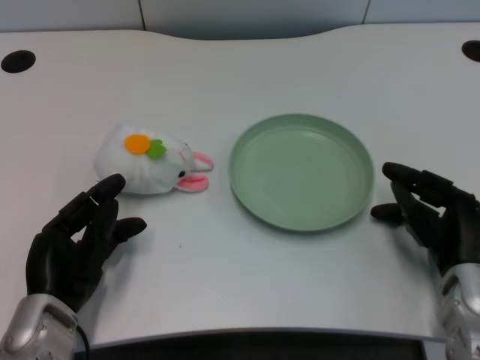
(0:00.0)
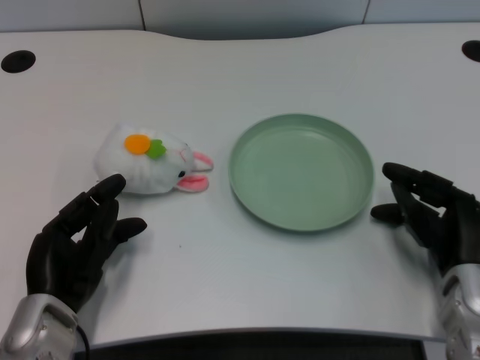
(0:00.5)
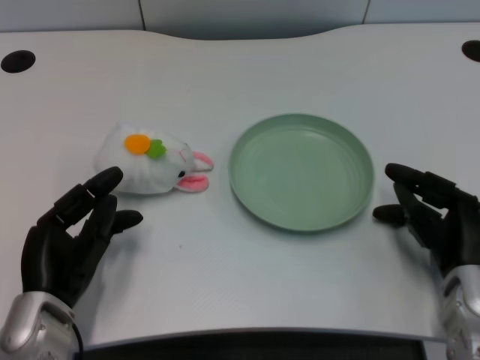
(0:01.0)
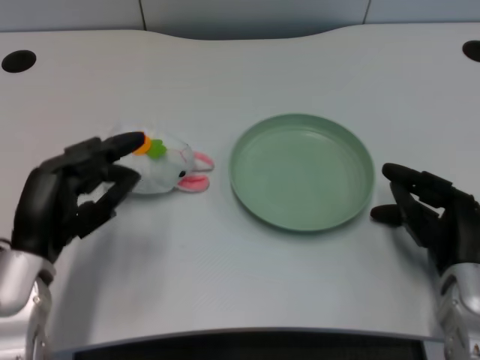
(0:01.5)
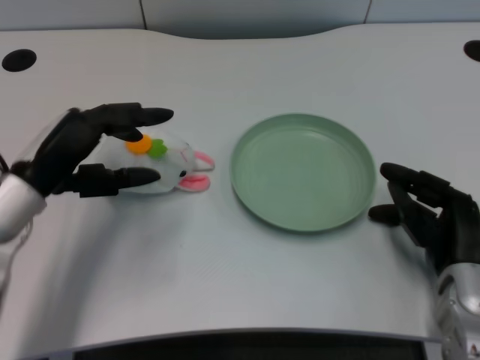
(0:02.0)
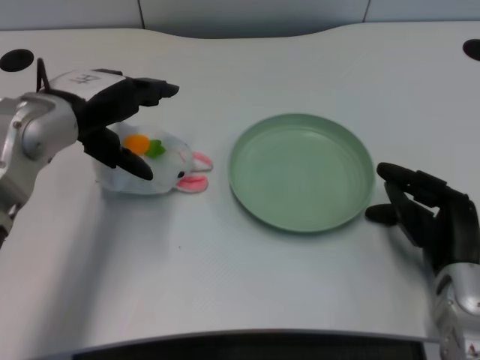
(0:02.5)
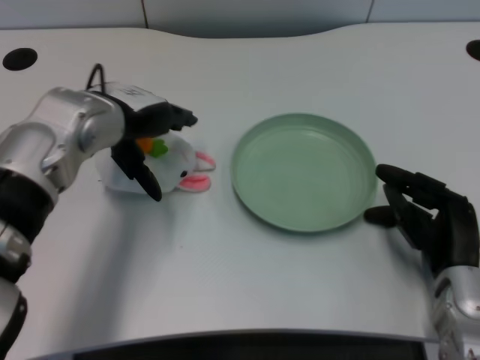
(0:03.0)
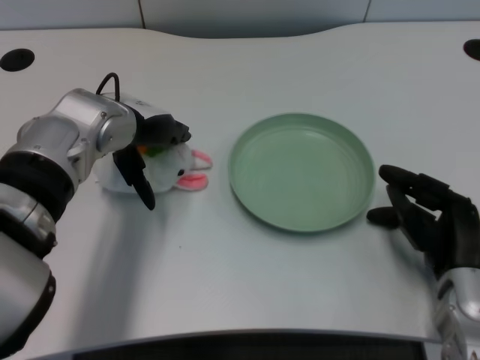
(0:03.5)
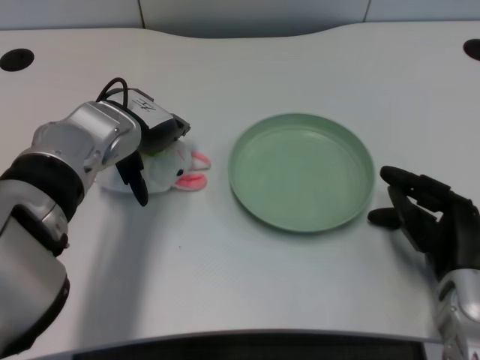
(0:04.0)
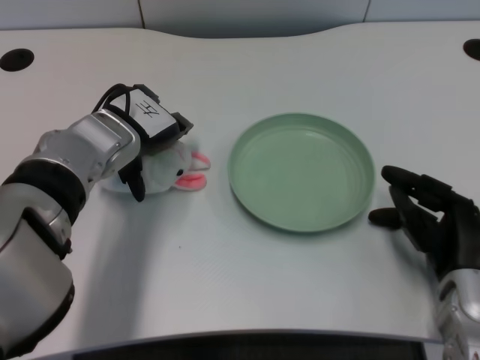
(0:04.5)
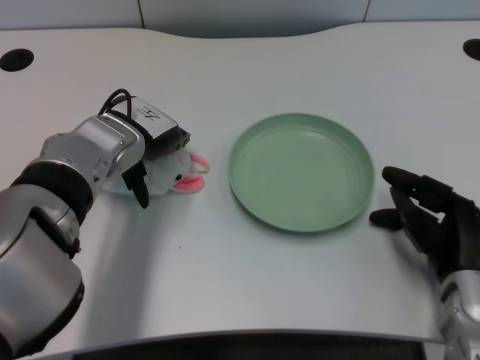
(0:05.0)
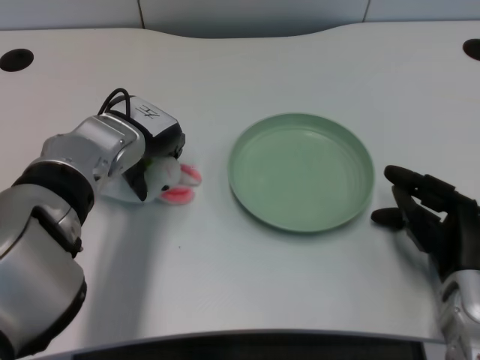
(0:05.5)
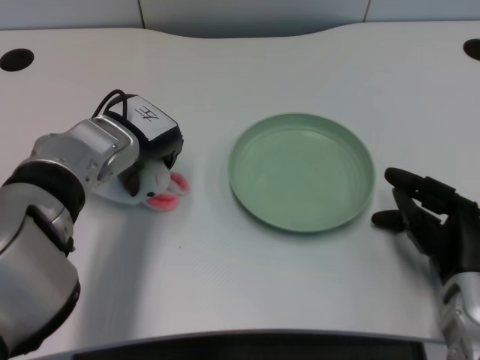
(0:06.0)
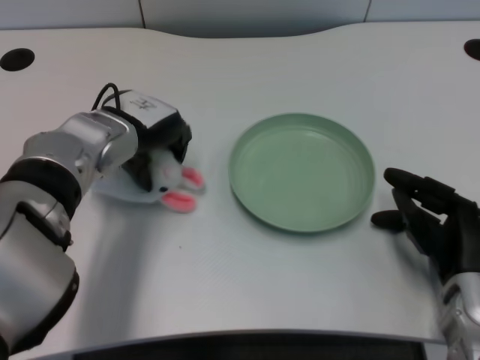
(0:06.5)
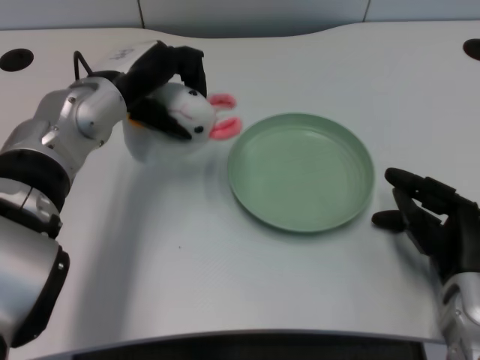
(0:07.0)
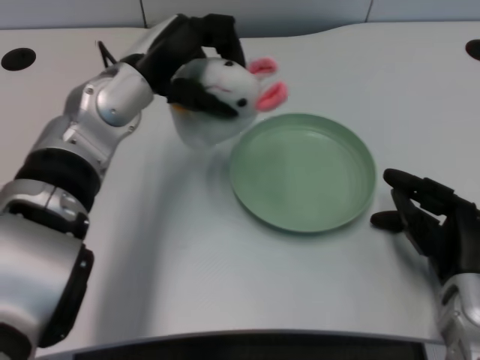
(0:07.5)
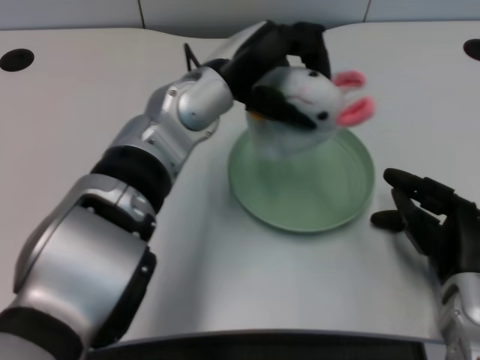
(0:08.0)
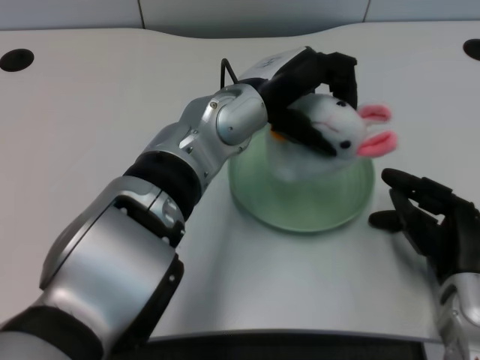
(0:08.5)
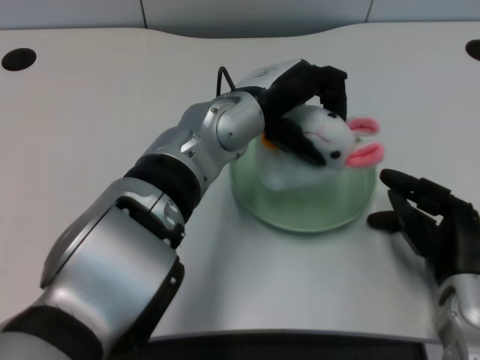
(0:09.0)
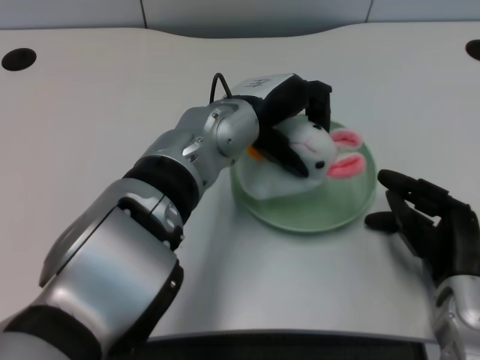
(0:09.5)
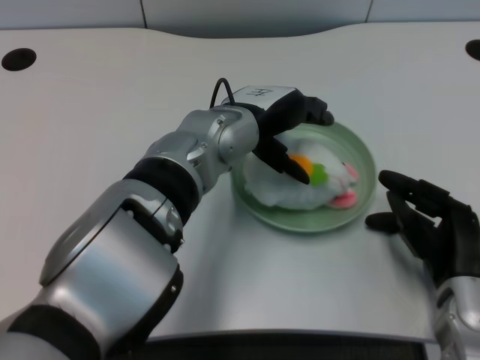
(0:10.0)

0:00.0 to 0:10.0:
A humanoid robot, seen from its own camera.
Task of the whole recording: pick up the rabbit doll from the table and place it on the plate.
Step, 0:01.0 to 0:06.0: Grasp the rabbit doll with the left gripper.
0:02.0 to 0:04.0: The left hand moves forward and to the right, approximately 10 cm.
0:04.0 to 0:06.0: The hands make only small movements.
0:06.0 to 0:08.0: The left hand goes some 10 cm to the right and upward.

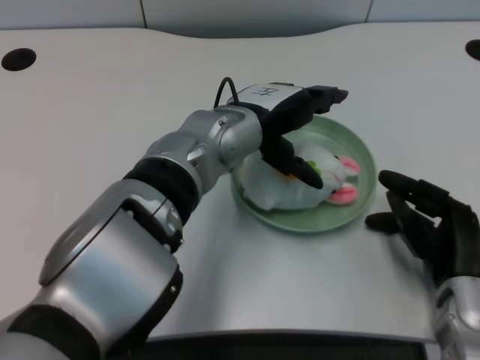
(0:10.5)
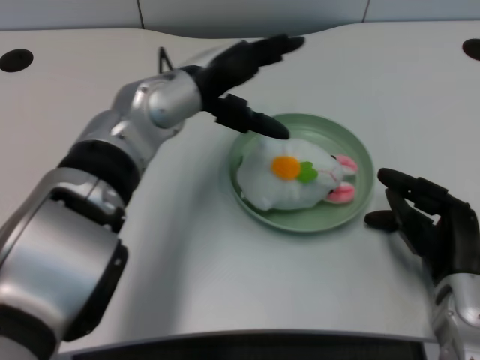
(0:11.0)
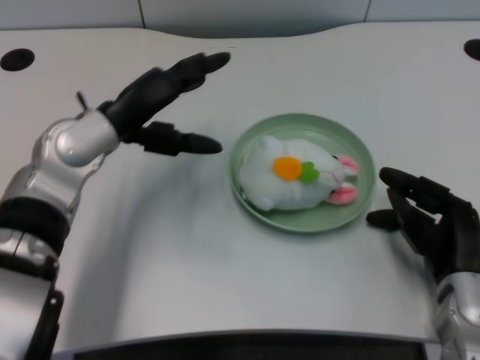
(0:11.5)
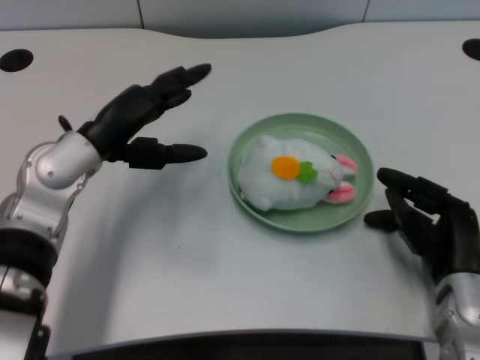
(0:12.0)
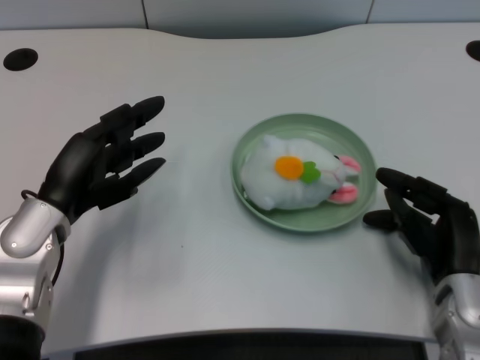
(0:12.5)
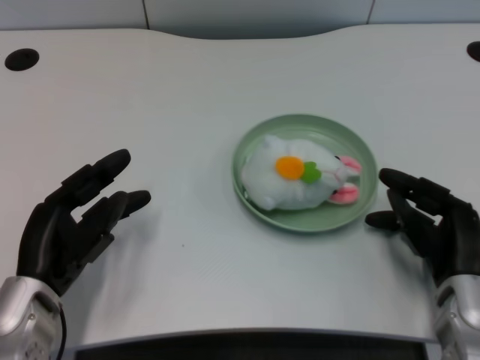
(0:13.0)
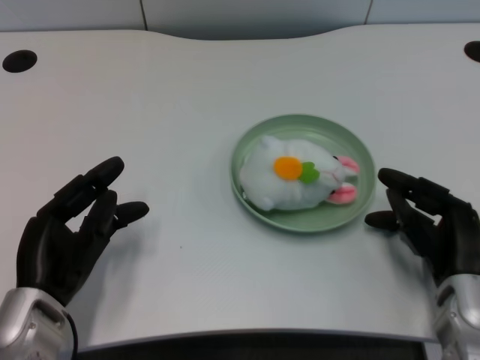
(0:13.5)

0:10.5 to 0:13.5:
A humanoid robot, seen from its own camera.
Task of the whole recording: pick up the rabbit doll from the table and place it on the plate.
0:10.5 to 0:12.0: The left hand moves to the left, approximately 15 cm.
0:12.0 to 0:13.5: The left hand is displaced backward and downward by roughly 15 cm.

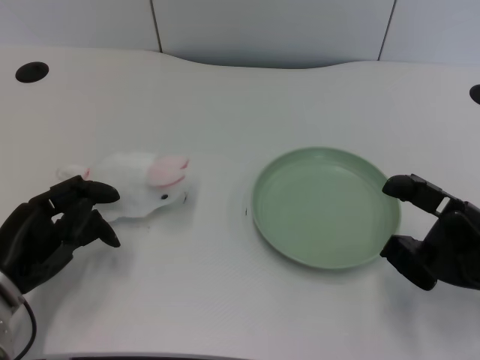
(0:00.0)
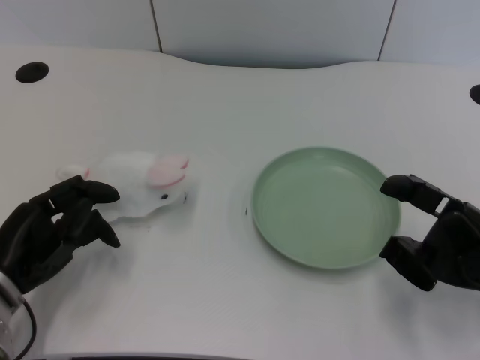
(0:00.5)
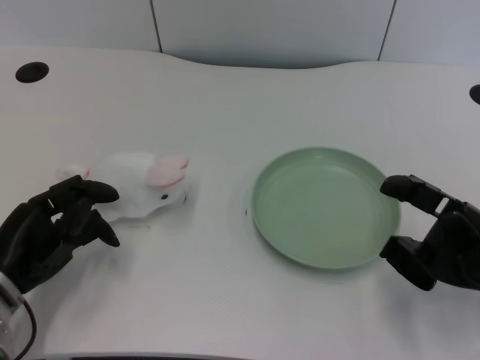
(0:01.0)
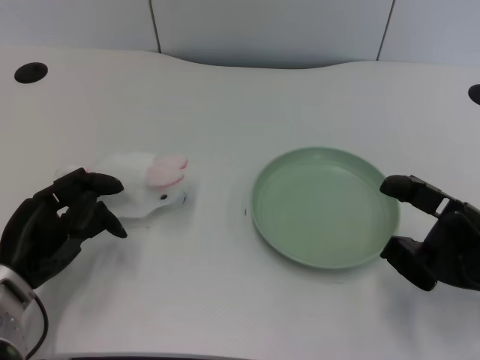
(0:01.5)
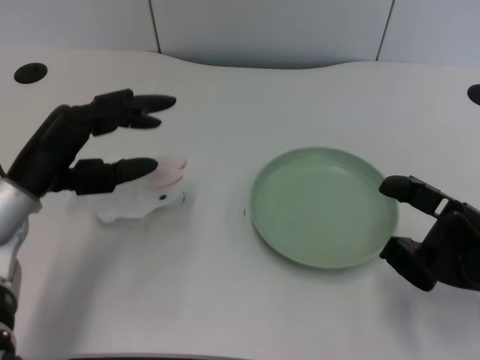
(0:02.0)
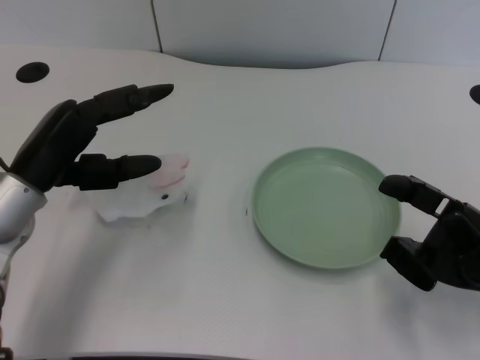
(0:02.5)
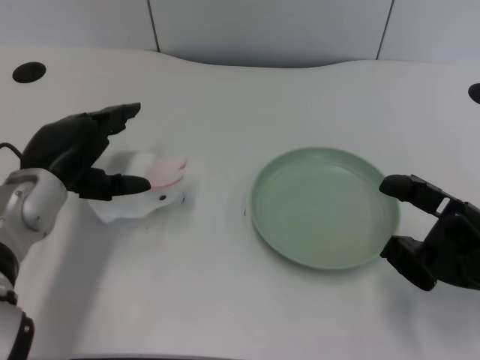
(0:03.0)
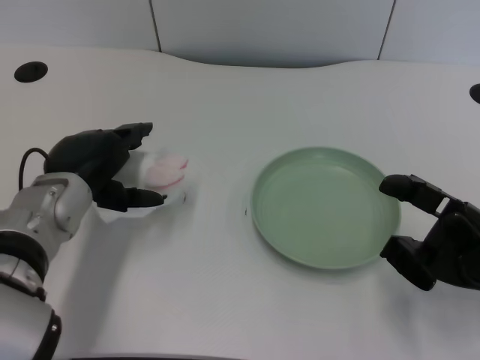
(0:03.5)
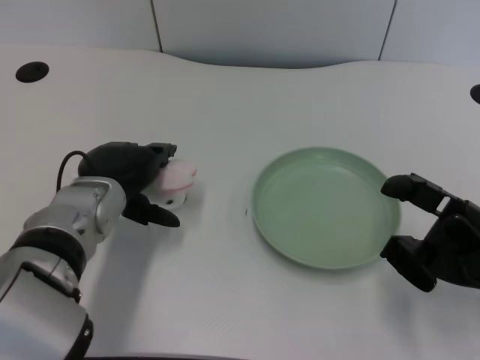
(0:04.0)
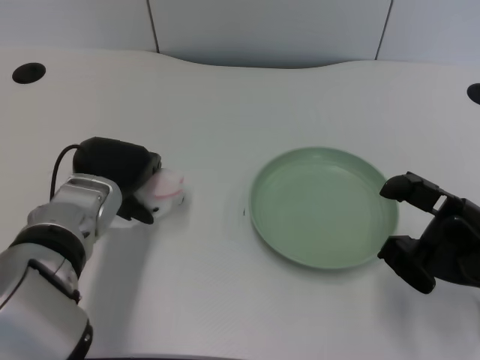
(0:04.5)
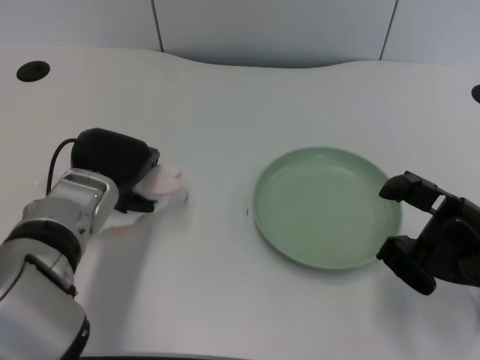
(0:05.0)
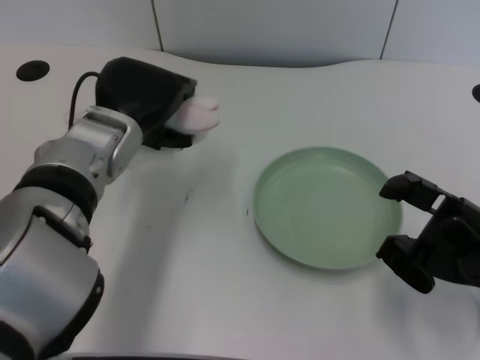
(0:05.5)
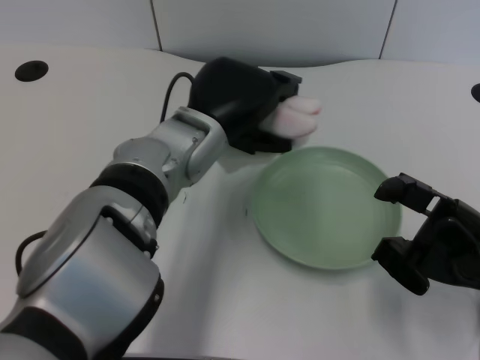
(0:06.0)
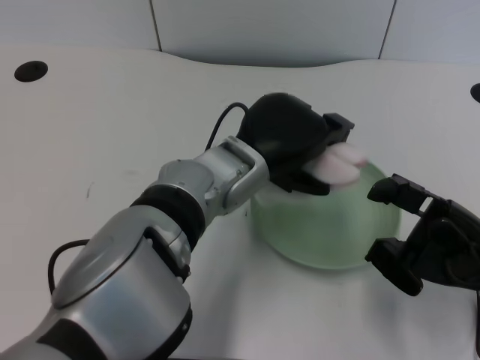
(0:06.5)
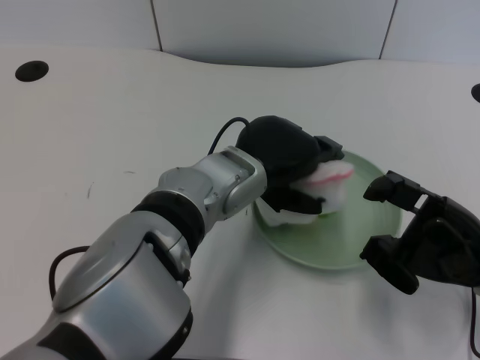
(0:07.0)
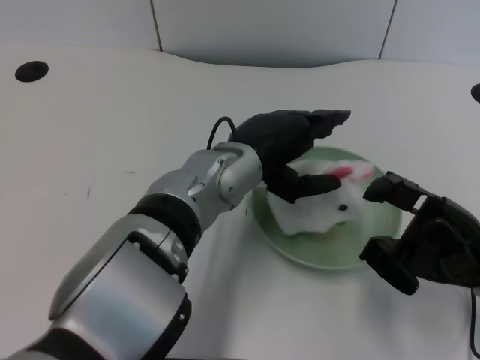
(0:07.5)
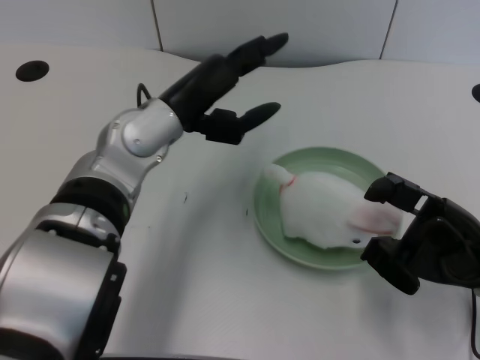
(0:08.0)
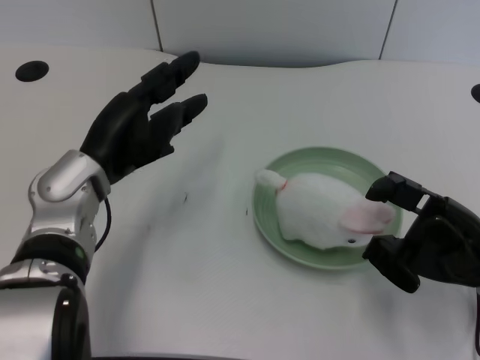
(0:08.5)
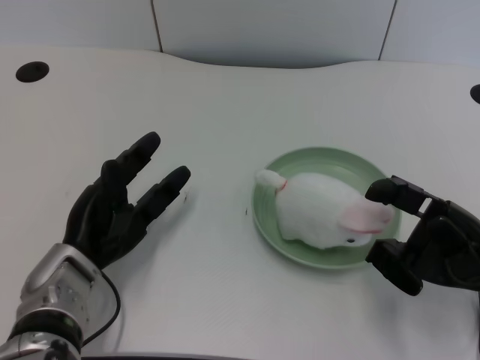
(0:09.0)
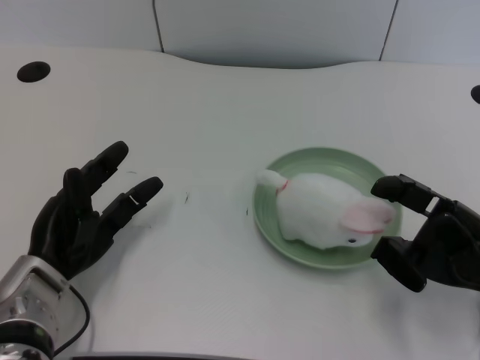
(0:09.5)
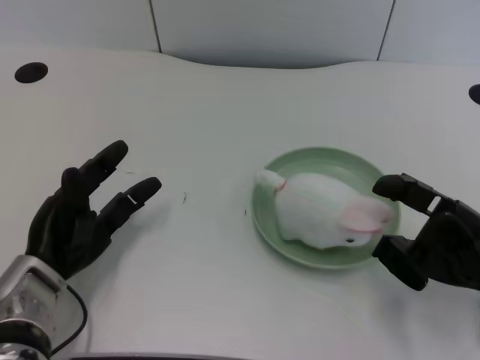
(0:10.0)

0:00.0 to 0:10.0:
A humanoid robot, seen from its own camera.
Task of the whole recording: pick up the rabbit doll from the table and place it on the plate.
Step, 0:01.5 to 0:05.0: Grasp the rabbit doll with the left gripper.
Step, 0:05.5 to 0:07.0: Place the rabbit doll into the plate with the left gripper.
0:02.0 to 0:04.0: The left hand moves to the right, about 10 cm.
0:04.0 to 0:06.0: The left hand moves to the right and upward, approximately 10 cm.
0:06.0 to 0:08.0: The left hand shifts by approximately 5 cm.
0:08.0 to 0:10.0: The left hand goes roughly 20 cm downward, to the left and backward.

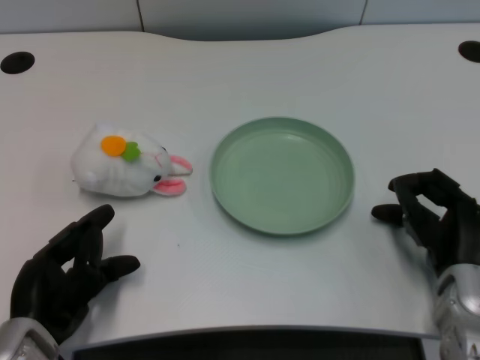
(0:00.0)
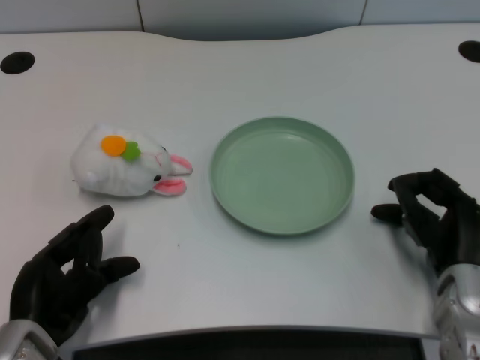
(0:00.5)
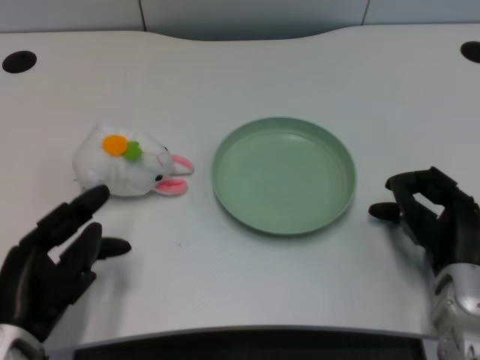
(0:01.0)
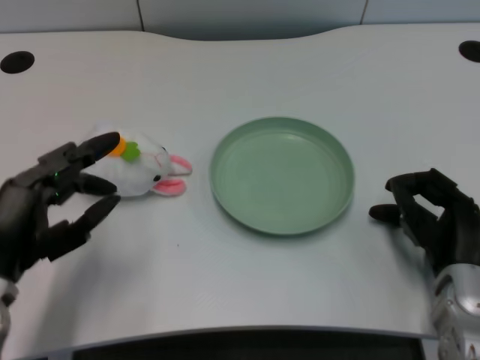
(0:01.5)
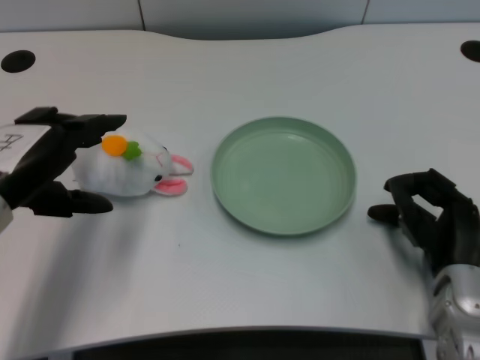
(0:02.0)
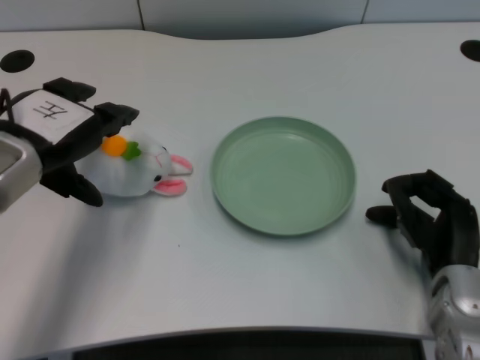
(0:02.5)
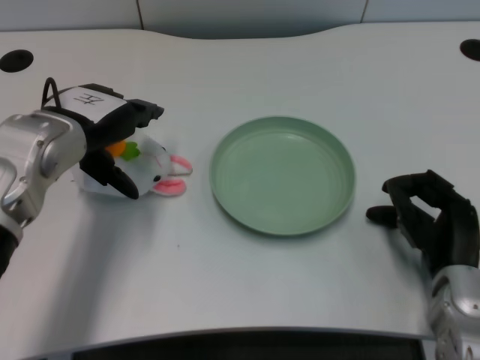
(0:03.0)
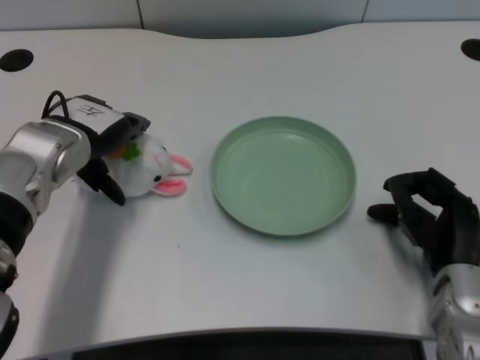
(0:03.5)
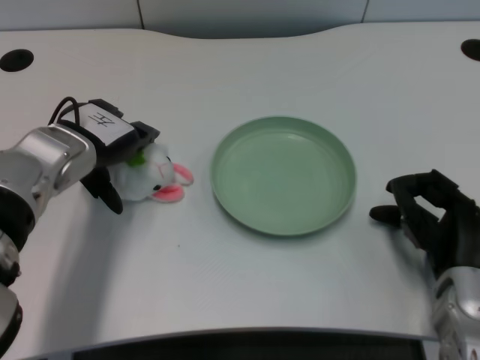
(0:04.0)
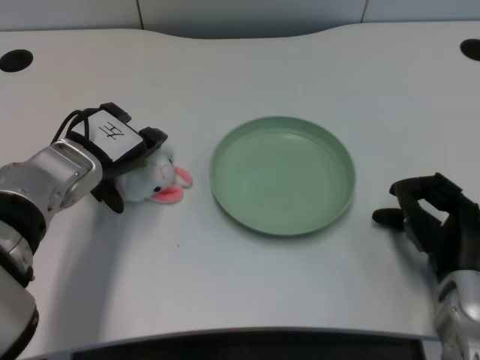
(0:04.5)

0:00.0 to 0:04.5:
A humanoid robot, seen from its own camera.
Task of the whole recording: pick up the rabbit doll from the table and place it on the plate.
0:02.0 to 0:04.5: The left hand heads forward and downward, covering roughly 10 cm.
